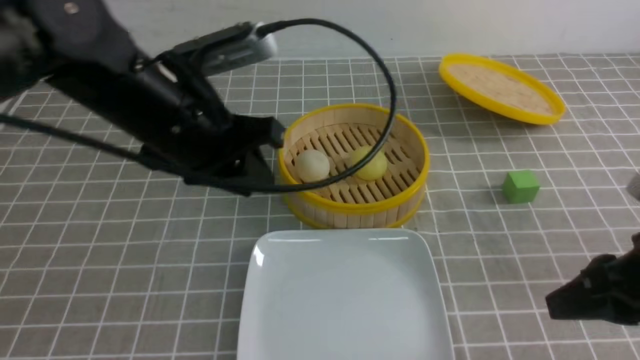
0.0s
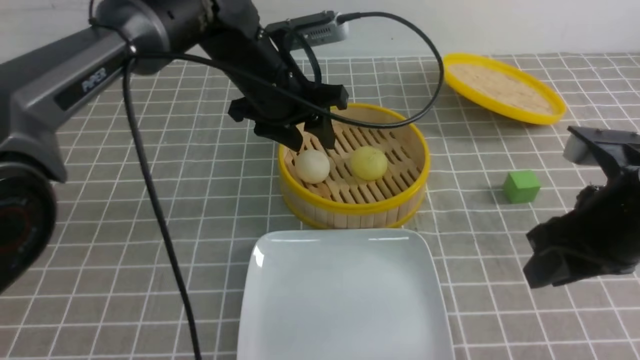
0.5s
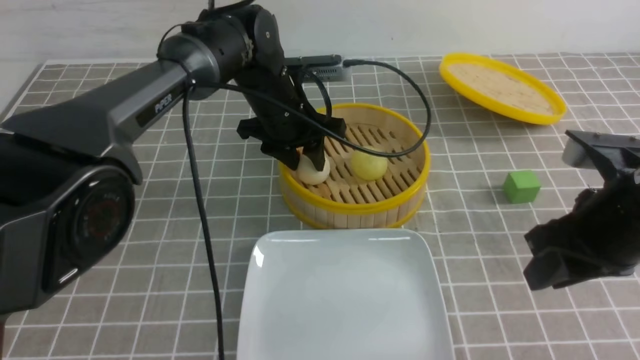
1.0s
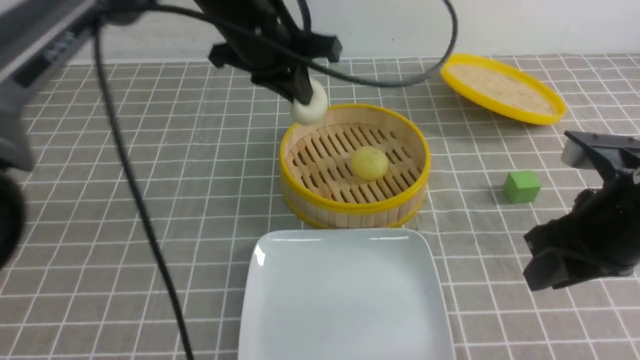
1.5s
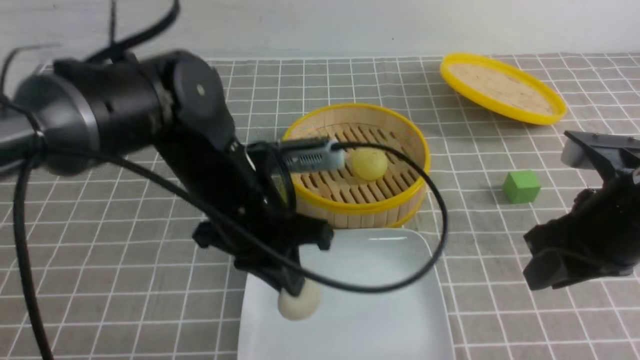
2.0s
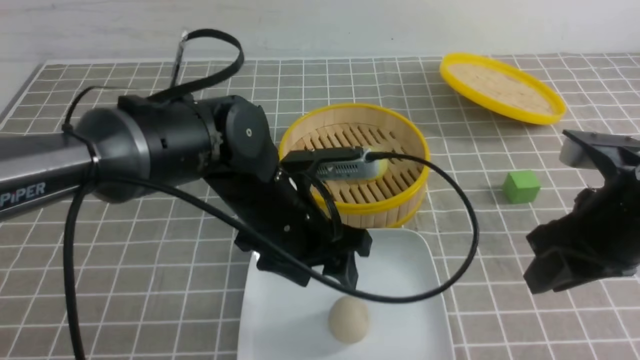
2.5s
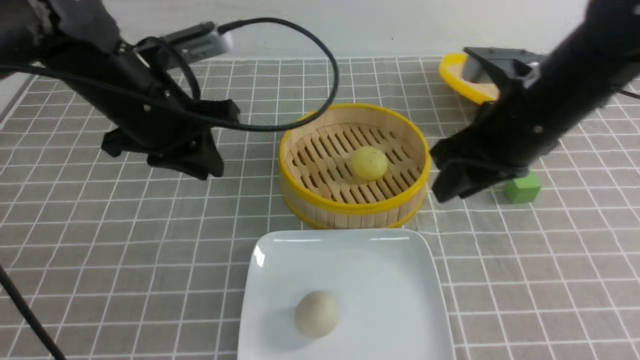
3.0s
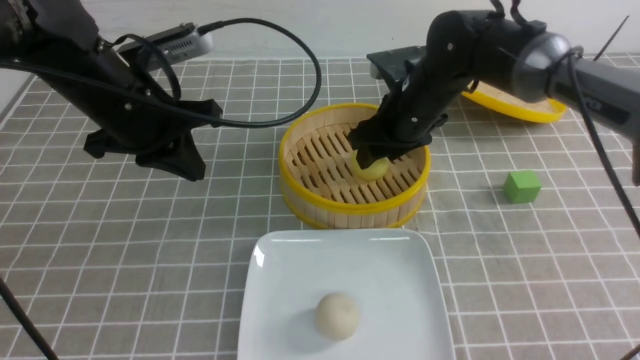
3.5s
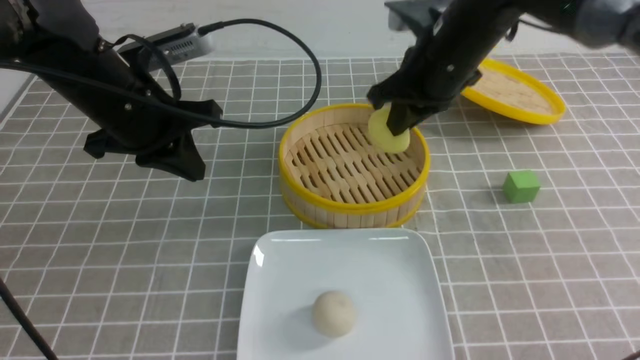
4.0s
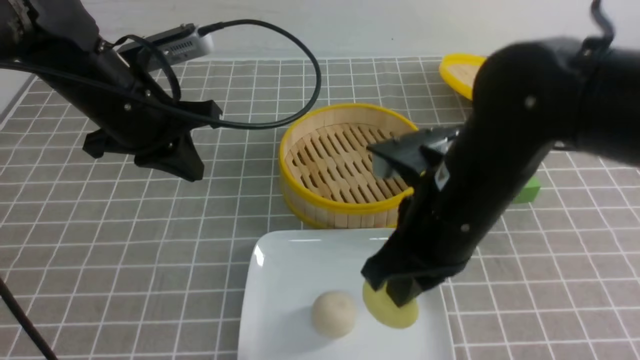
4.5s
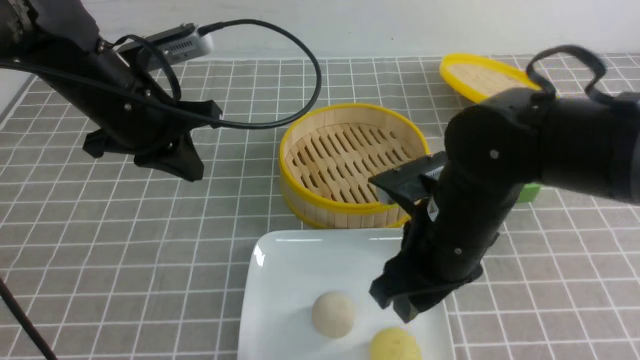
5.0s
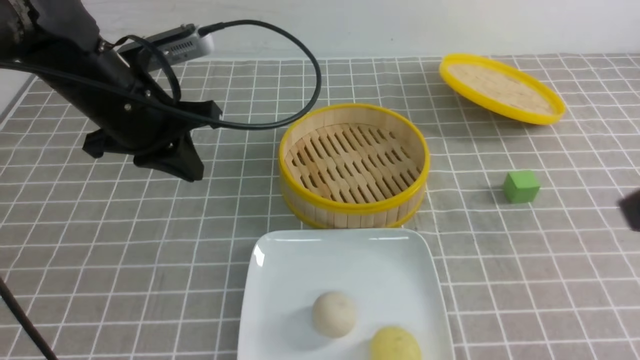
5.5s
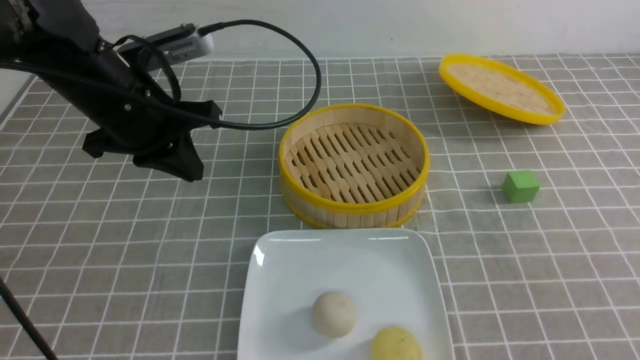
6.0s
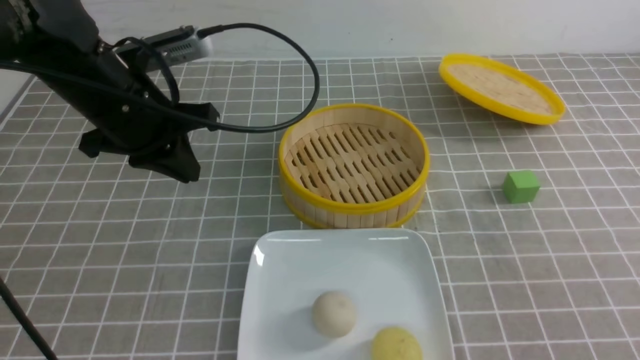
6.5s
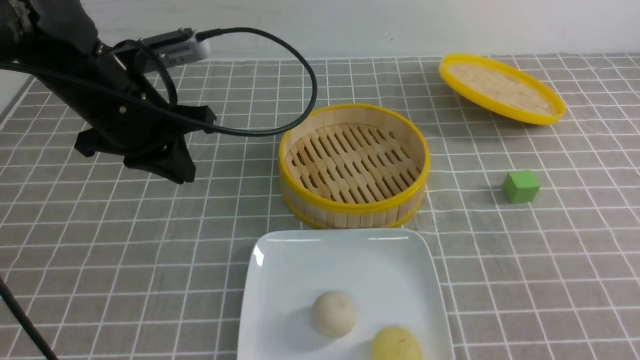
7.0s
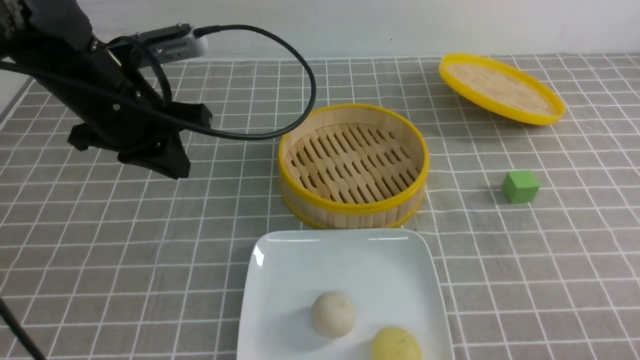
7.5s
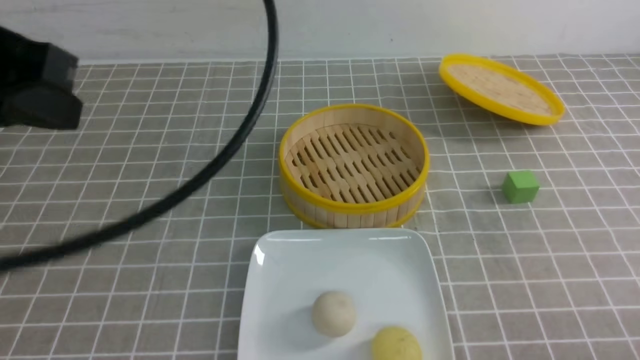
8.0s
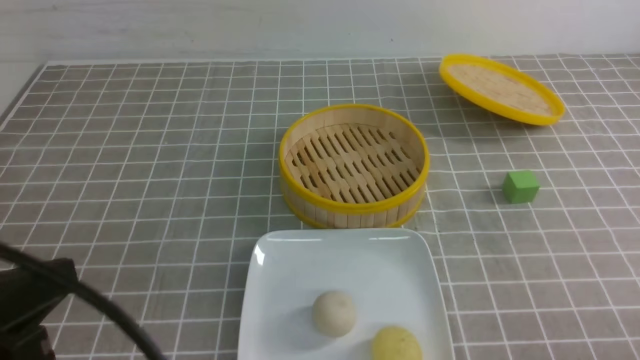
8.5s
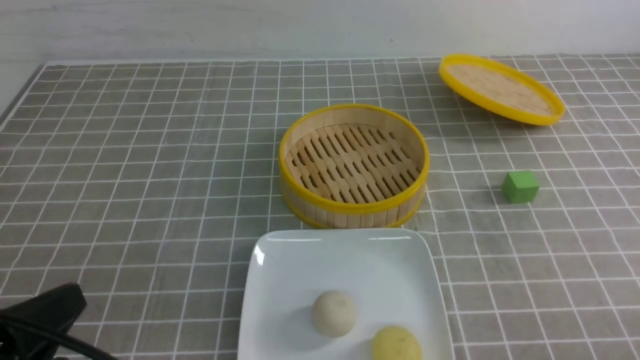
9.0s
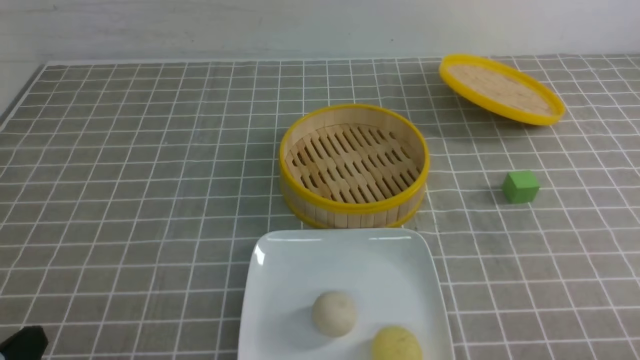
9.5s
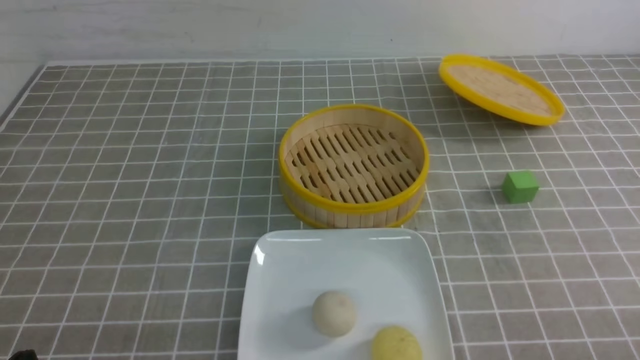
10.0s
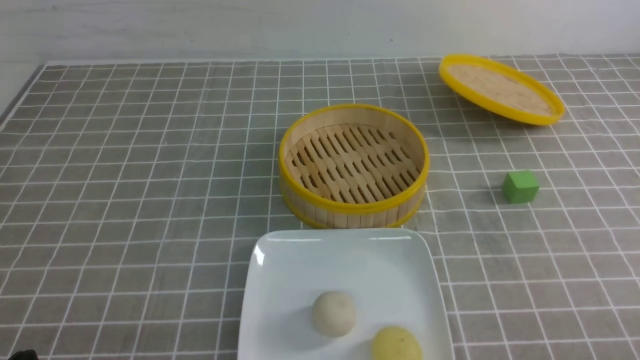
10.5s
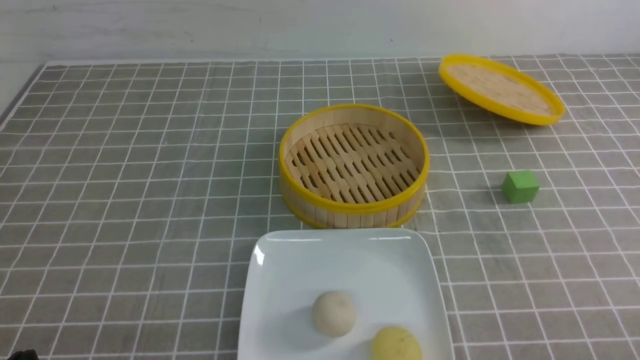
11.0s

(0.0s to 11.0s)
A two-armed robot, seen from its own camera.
Step, 1.5s - 2.0s: use the left arm to put the steamed stuffed bun into the plate.
Step, 2.5s - 3.5s: use the right arm to grab the steamed stuffed bun that is closest to it.
Step, 4.0s - 4.5s: use the right arm to put the steamed stuffed bun into the plate.
0.0s - 2.0s: The right gripper moves some 5 cm, while the left gripper shifts approximately 10 cm downward and to the right, travels forward and back again, about 15 cm each way, and closes.
2.0s - 3.5s: The left gripper is displaced to the left and forward by about 15 cm, and opens, then closes again, while the right gripper goes approximately 25 cm forward and to the left.
3.5s - 5.5s: The right gripper goes approximately 35 cm backward and upward, and closes up.
5.5s - 7.5s: The right gripper travels downward by approximately 20 cm.
7.5s - 9.0s: The left gripper shifts about 25 cm backward.
9.0s - 11.0s: The left gripper moves downward, about 10 cm.
